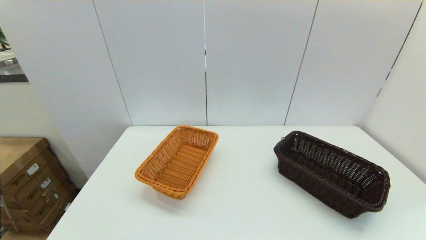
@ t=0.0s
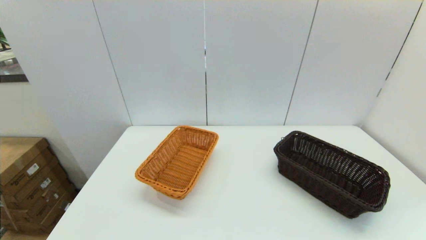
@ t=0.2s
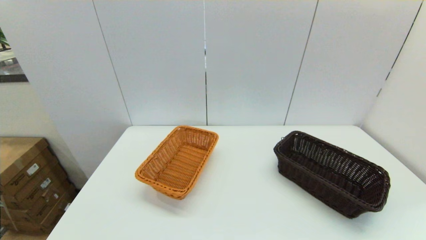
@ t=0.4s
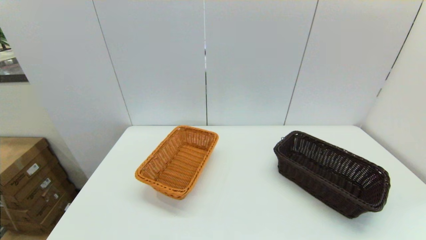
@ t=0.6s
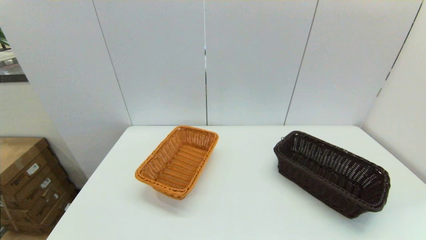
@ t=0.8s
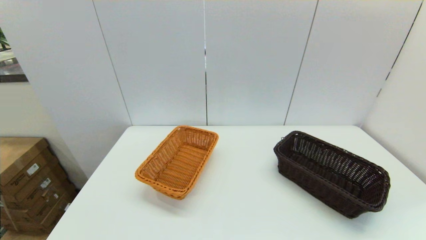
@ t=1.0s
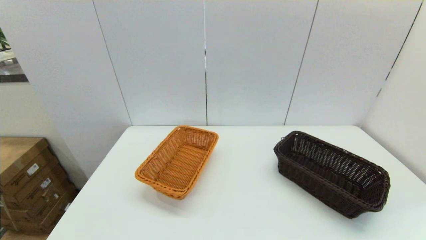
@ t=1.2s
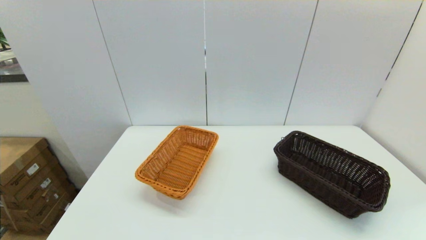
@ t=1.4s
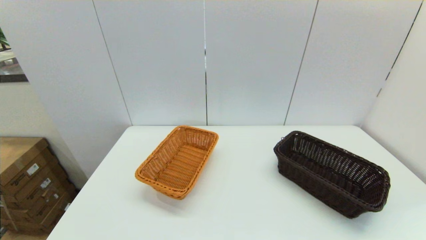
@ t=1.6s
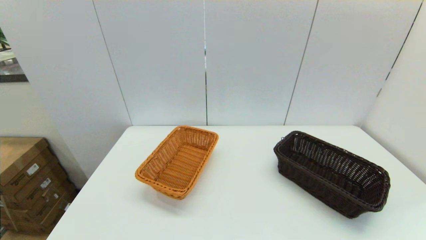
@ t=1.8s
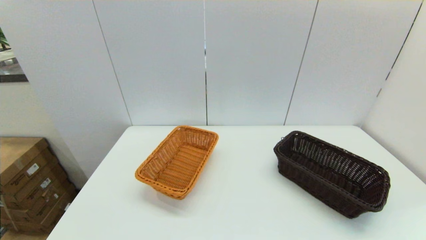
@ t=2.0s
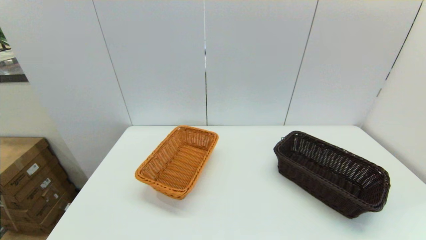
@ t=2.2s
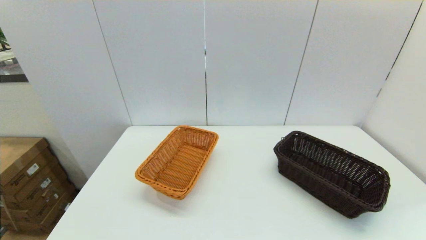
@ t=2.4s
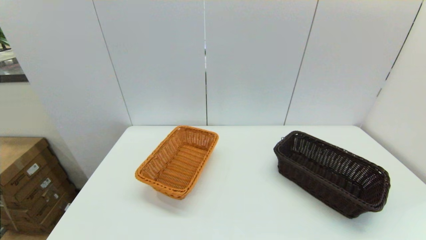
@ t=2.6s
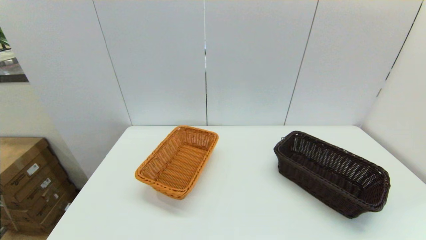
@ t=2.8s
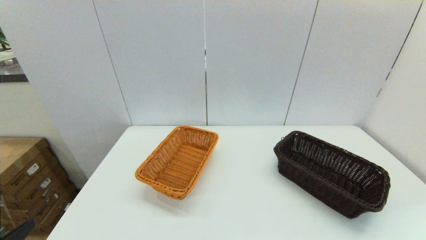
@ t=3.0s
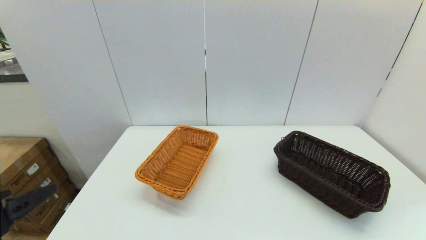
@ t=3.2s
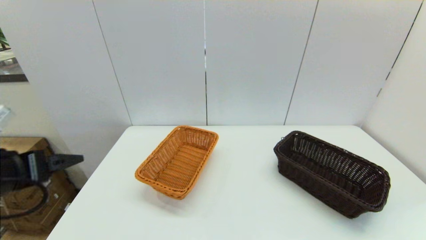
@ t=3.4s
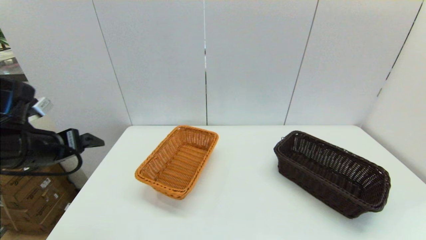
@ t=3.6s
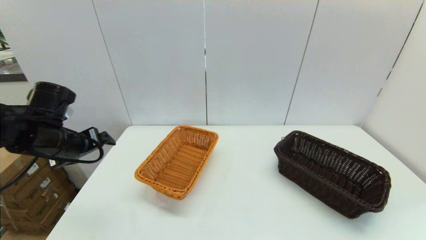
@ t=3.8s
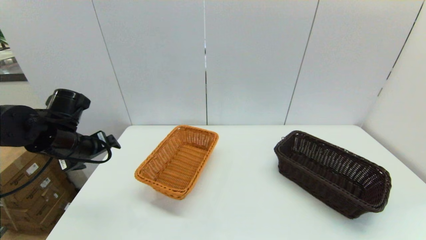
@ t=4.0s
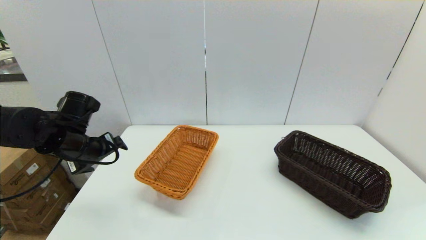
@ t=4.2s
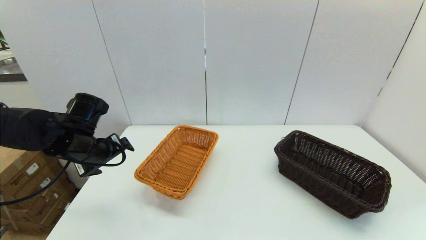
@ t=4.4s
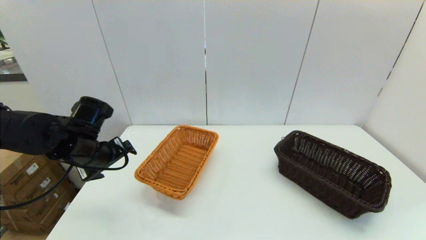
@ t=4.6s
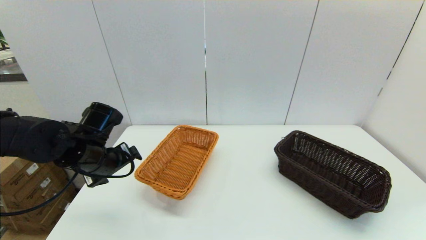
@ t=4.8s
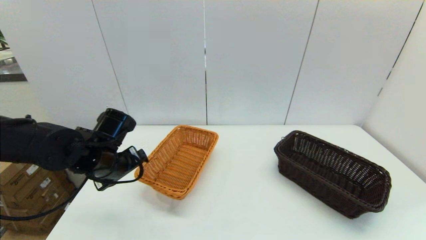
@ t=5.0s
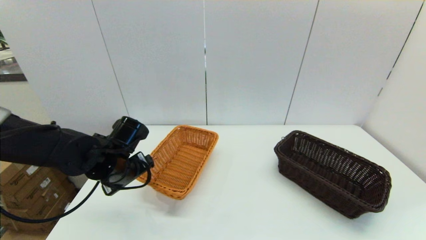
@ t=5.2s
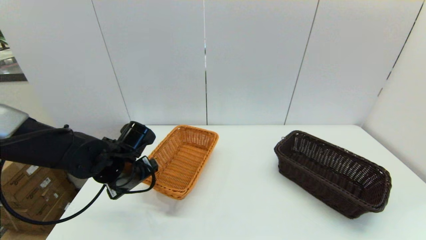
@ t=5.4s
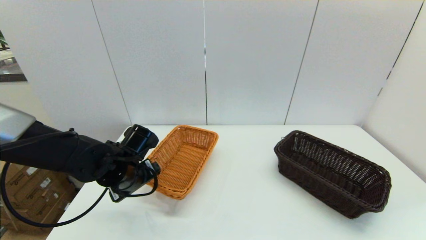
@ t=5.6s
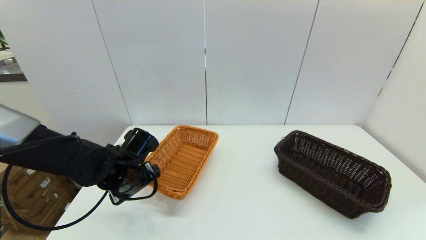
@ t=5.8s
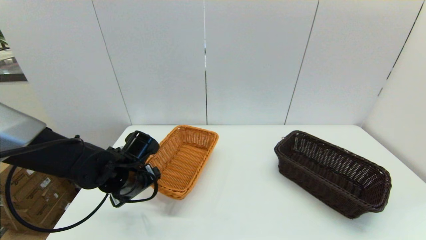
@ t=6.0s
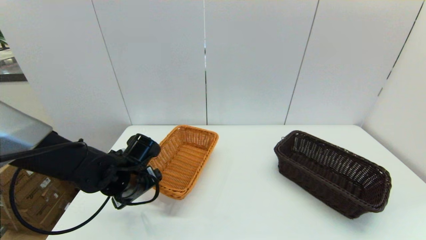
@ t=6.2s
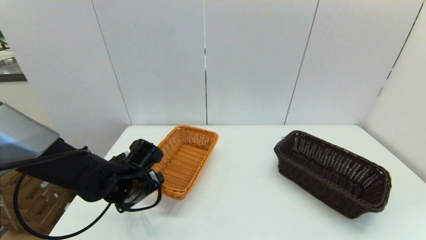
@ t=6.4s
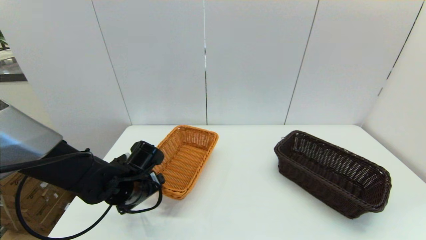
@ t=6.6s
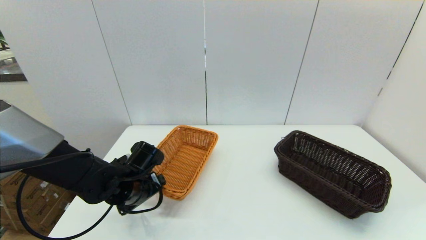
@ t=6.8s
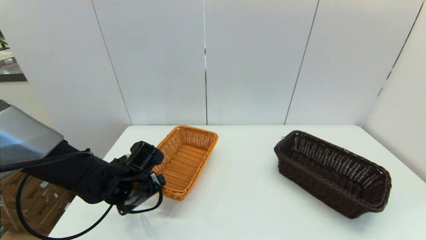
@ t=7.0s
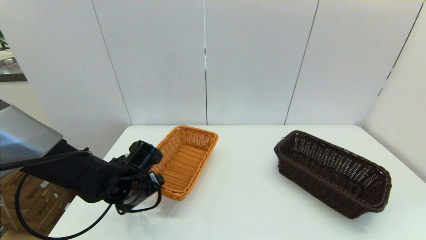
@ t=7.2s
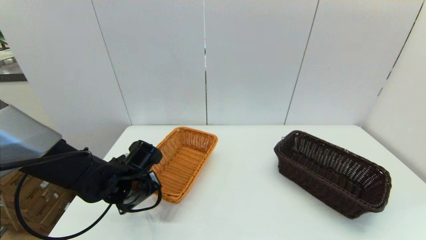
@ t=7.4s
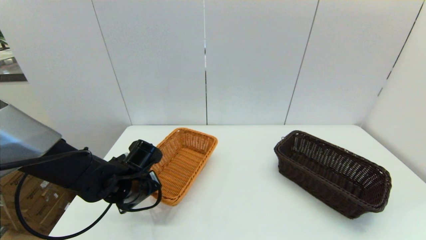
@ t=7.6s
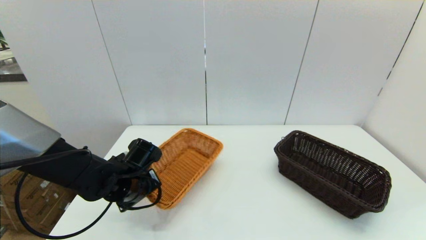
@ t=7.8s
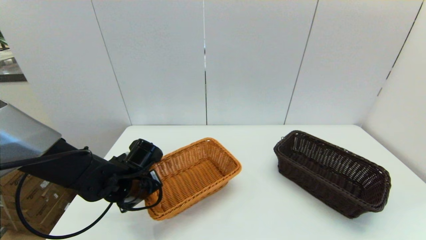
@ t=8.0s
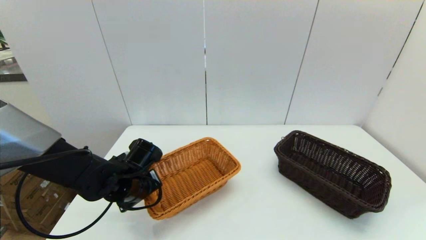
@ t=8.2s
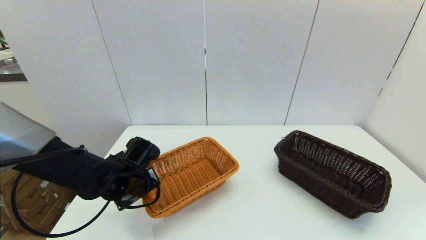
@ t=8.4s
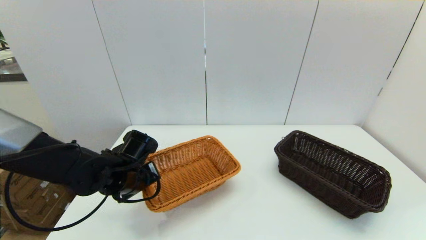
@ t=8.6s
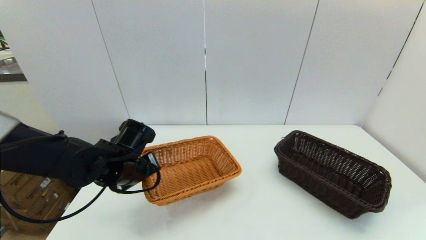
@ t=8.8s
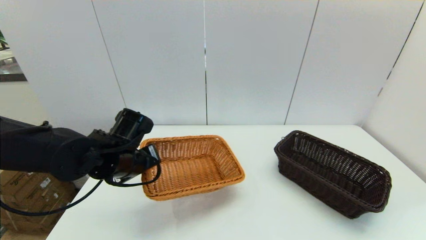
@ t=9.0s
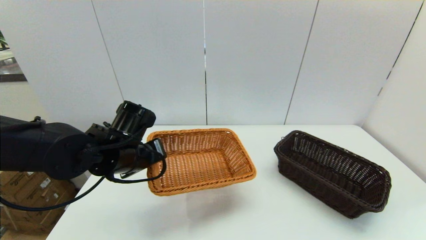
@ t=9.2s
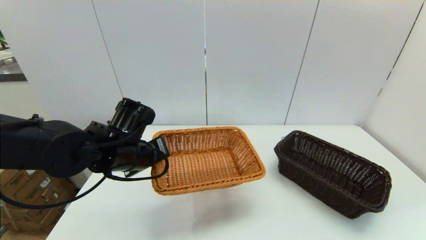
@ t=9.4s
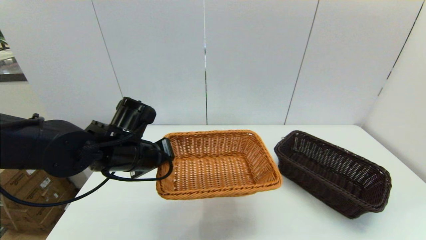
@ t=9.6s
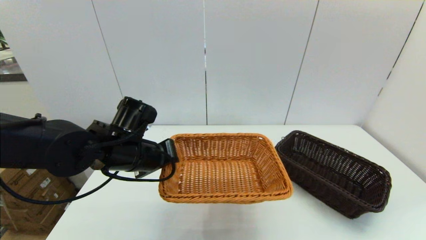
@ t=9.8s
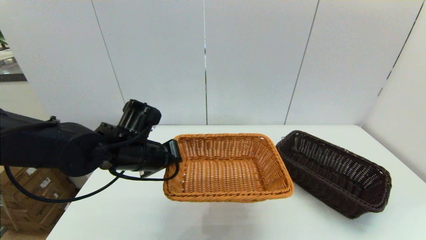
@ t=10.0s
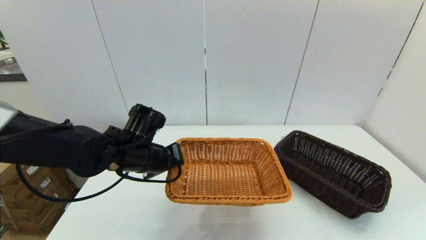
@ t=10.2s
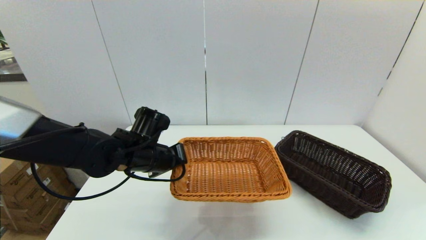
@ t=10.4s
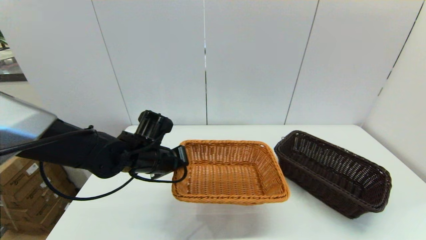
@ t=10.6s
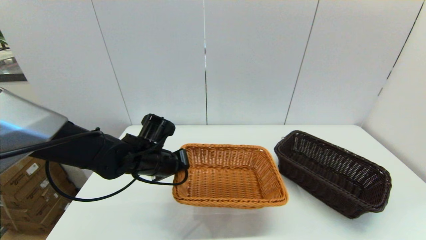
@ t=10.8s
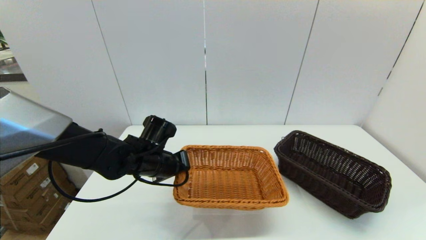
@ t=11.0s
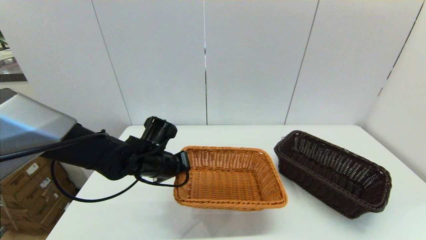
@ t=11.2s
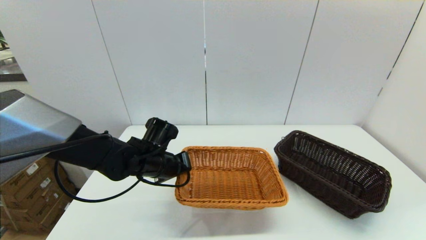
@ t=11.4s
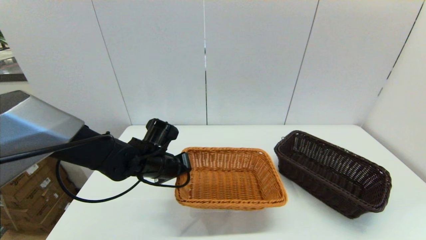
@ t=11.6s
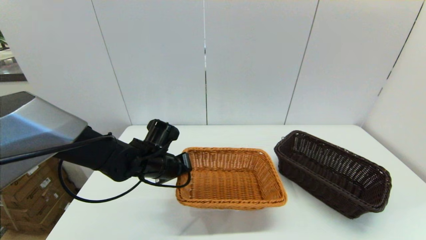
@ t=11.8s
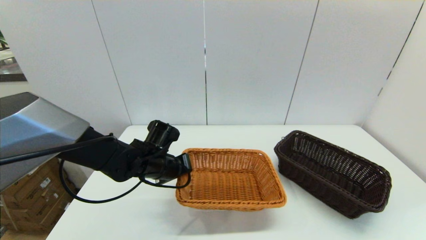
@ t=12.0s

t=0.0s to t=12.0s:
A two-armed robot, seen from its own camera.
Task of the whole recording: stack a basket on top of another basket.
Step, t=2.8s to t=8.4s: Grasp the light basket with the left gripper.
t=0.0s to t=1.6s: Neither gripper changes place.
t=3.0s to t=4.4s: The left gripper moves forward, approximately 25 cm.
t=4.4s to t=6.0s: The left gripper heads to the right and downward, covering approximately 10 cm.
t=6.0s to t=7.6s: The left gripper closes its fingers.
t=7.6s to t=9.0s: The left gripper moves upward, approximately 10 cm, and closes up.
t=10.4s to t=12.0s: There are only small adjustments of the grippers.

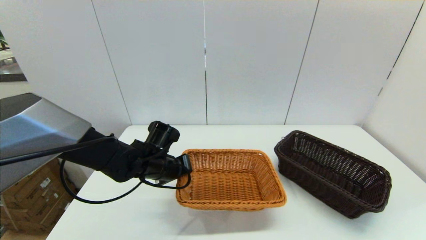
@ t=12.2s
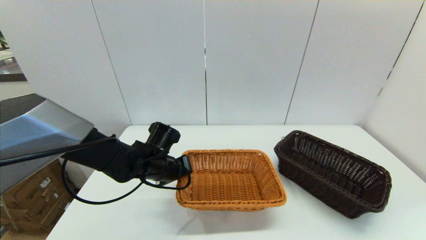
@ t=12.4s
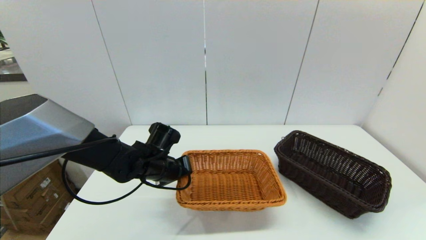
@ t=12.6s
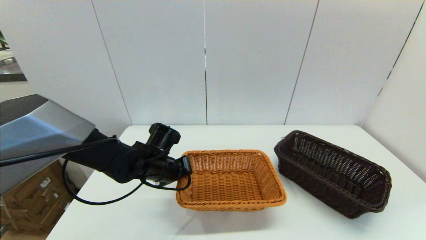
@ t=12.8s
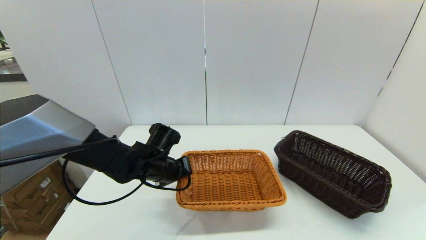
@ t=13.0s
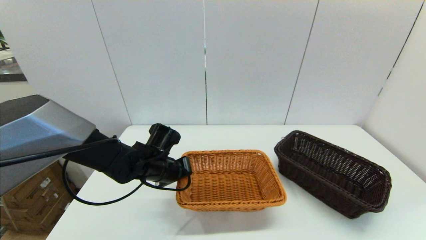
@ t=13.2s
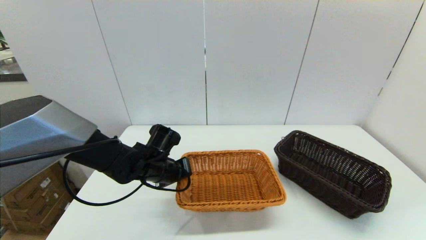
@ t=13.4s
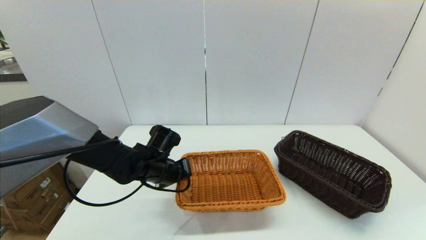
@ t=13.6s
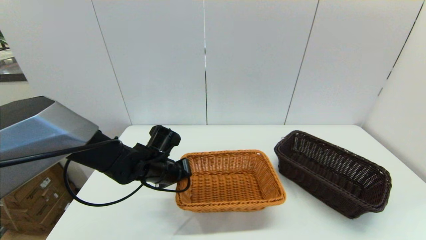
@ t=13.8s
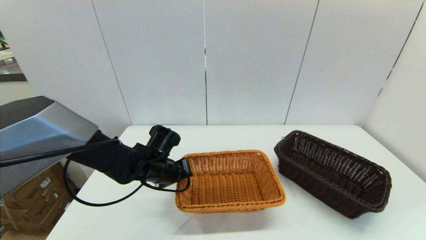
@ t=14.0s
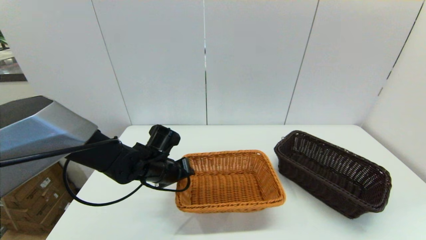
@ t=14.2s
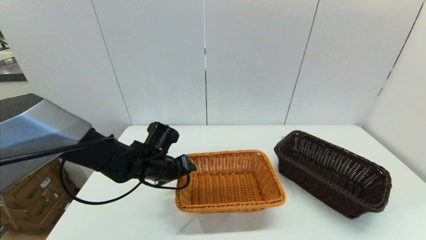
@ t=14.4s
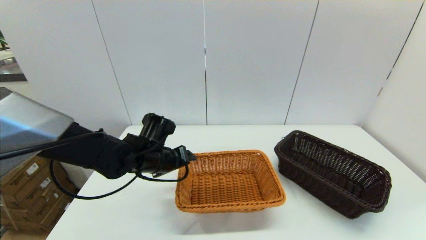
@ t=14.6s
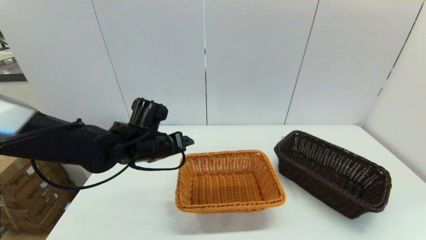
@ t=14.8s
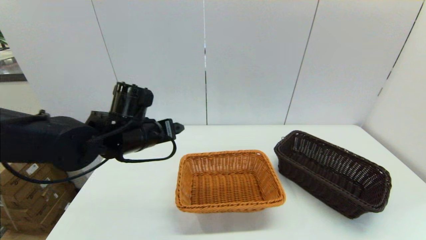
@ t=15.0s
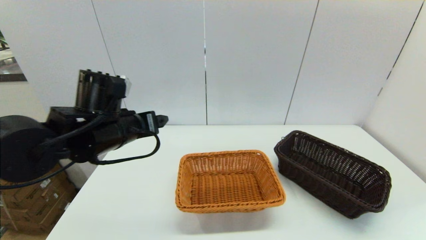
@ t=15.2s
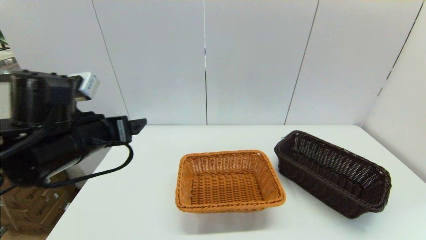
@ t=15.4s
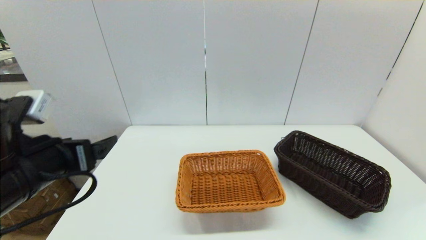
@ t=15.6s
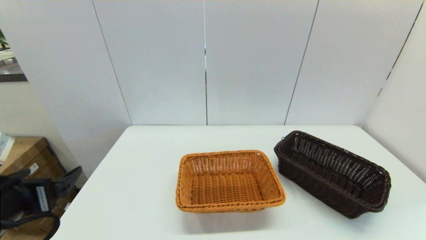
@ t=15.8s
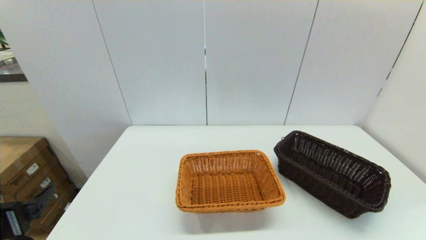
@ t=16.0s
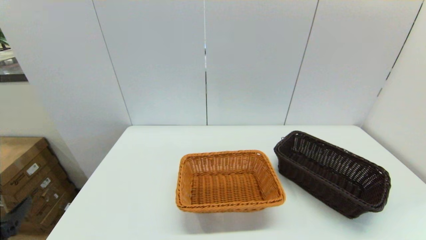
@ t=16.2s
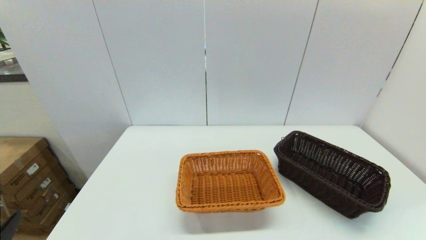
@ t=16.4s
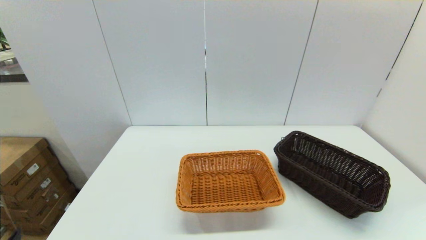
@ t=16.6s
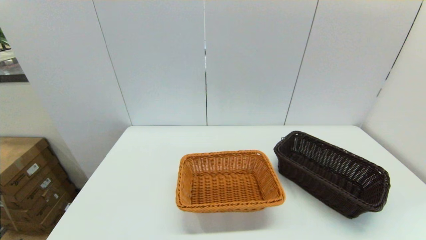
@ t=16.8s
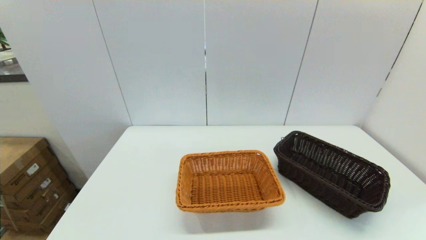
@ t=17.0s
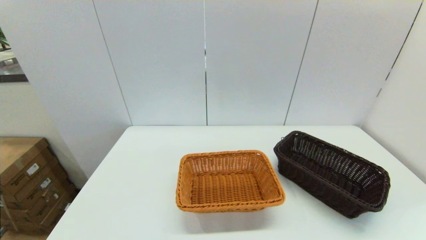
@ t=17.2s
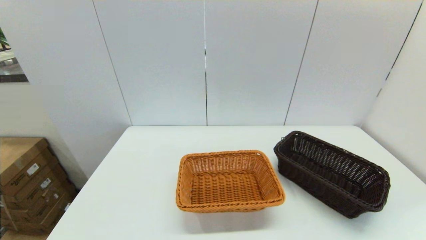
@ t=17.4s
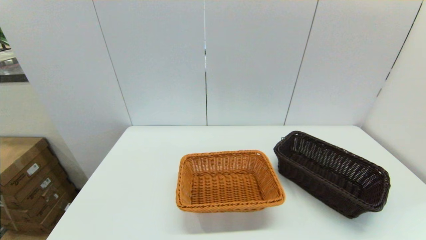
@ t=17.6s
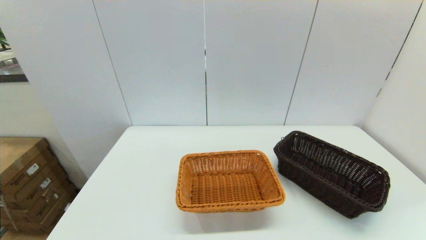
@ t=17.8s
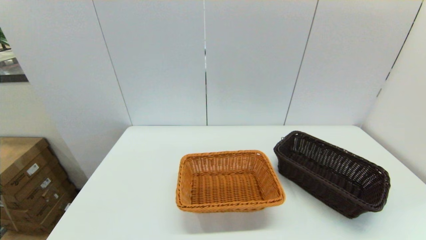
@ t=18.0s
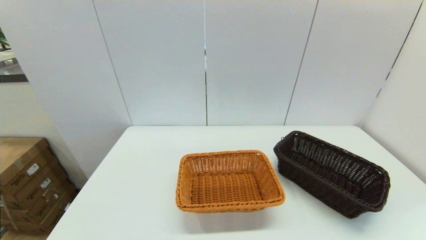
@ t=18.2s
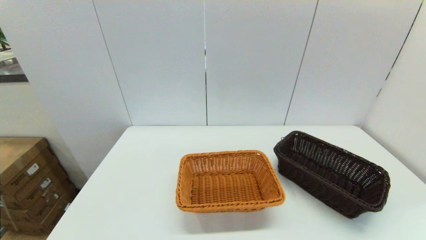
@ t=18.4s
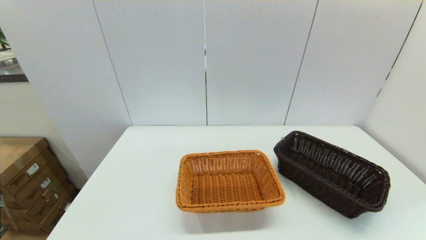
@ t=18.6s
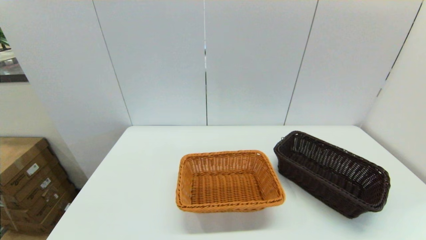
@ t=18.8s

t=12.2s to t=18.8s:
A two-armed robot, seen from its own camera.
Task of the whole recording: stack a basket on top of another basket.
Step, t=12.2s to t=14.6s: Place the light basket on the middle of the table with the left gripper.
t=12.2s to t=13.8s: Neither gripper changes place.
t=13.8s to t=15.4s: The left gripper shifts approximately 20 cm upward, backward and to the left, and opens up.
t=15.4s to t=17.2s: The left gripper heads backward, downward and to the left, covering approximately 30 cm.
